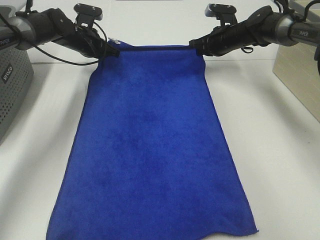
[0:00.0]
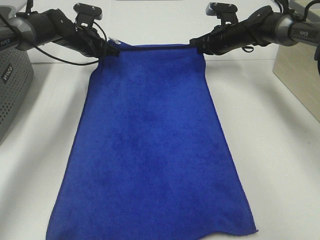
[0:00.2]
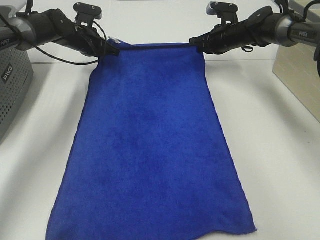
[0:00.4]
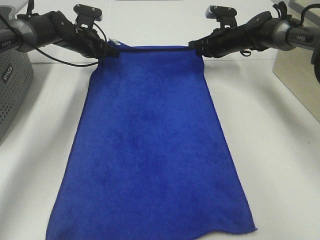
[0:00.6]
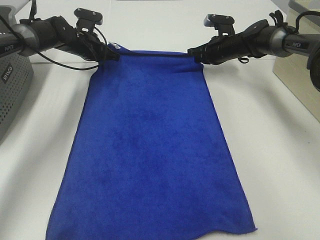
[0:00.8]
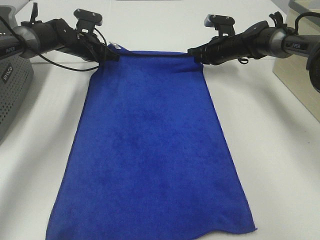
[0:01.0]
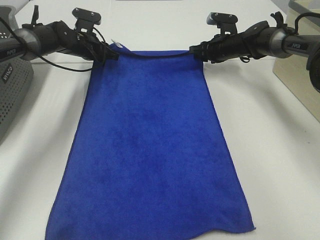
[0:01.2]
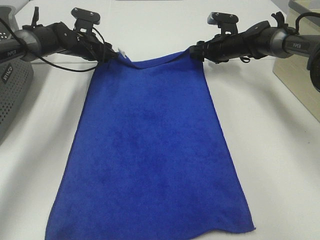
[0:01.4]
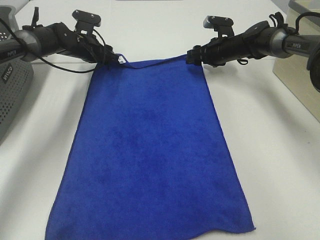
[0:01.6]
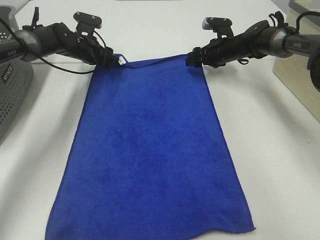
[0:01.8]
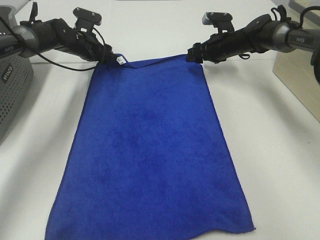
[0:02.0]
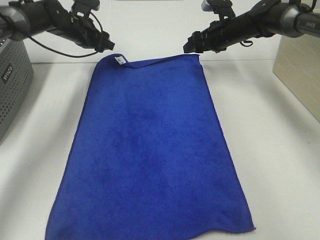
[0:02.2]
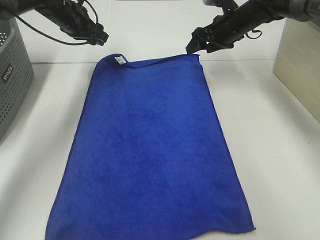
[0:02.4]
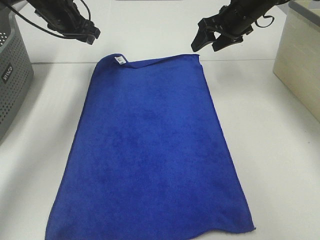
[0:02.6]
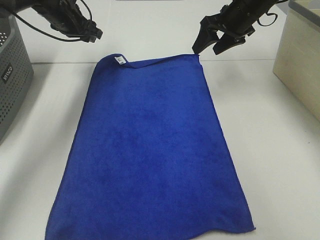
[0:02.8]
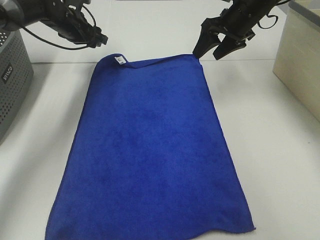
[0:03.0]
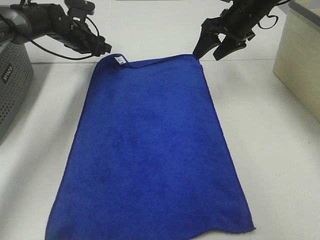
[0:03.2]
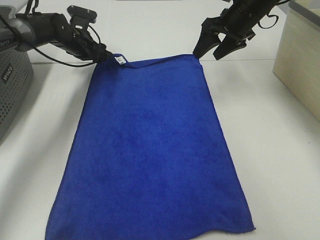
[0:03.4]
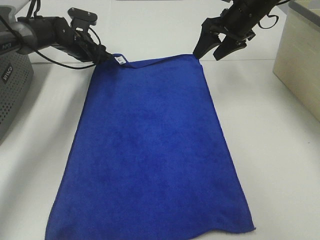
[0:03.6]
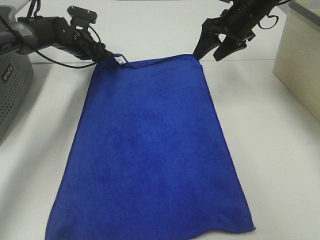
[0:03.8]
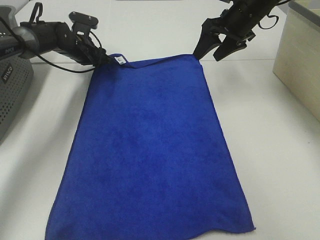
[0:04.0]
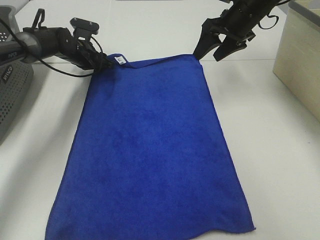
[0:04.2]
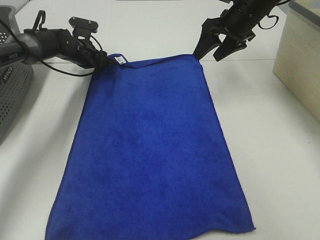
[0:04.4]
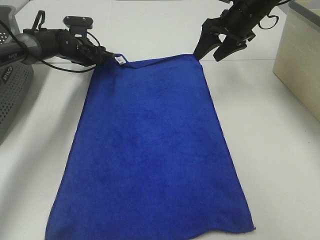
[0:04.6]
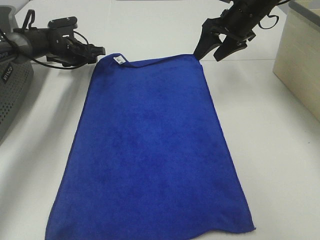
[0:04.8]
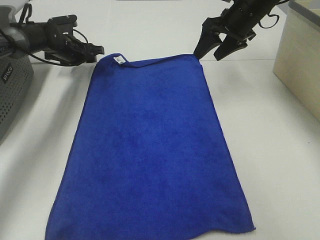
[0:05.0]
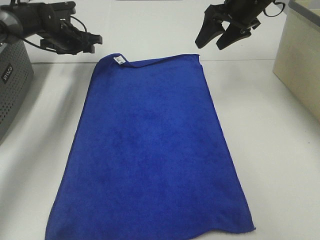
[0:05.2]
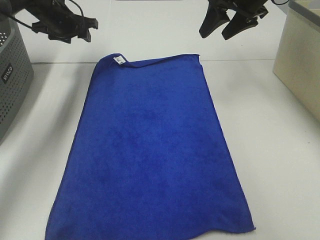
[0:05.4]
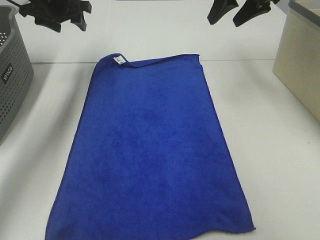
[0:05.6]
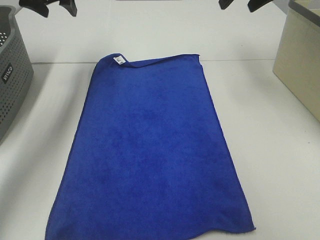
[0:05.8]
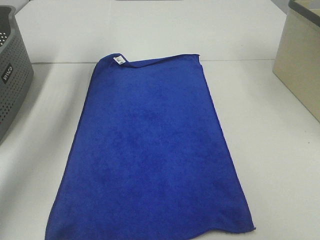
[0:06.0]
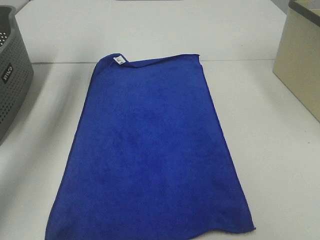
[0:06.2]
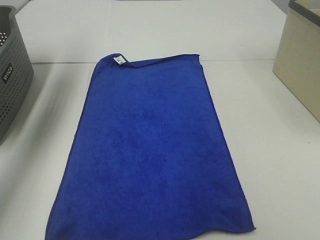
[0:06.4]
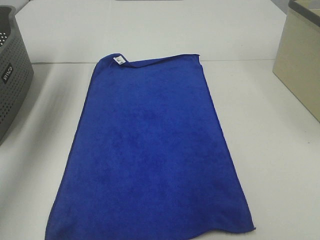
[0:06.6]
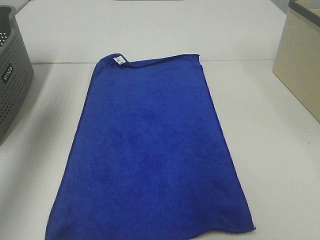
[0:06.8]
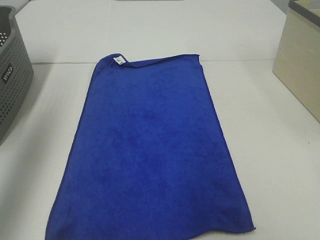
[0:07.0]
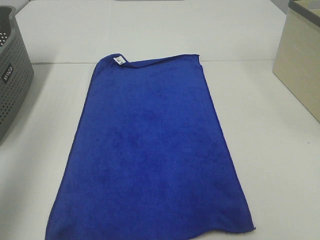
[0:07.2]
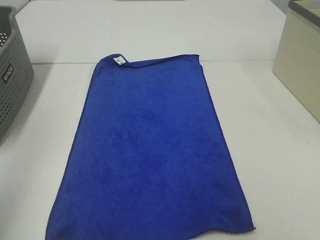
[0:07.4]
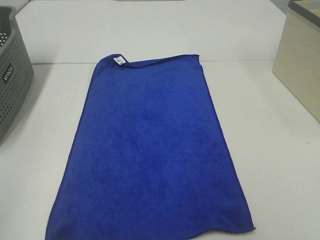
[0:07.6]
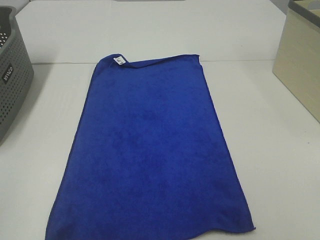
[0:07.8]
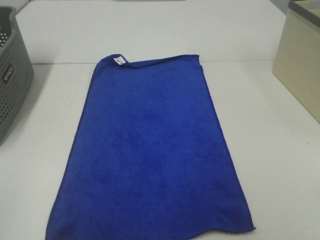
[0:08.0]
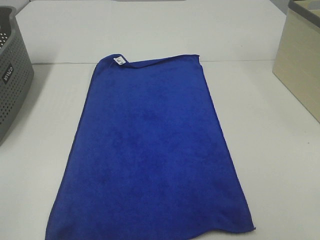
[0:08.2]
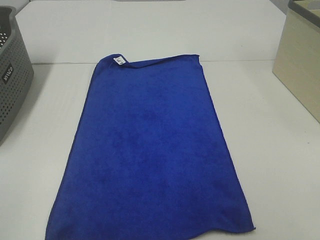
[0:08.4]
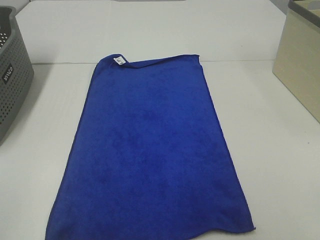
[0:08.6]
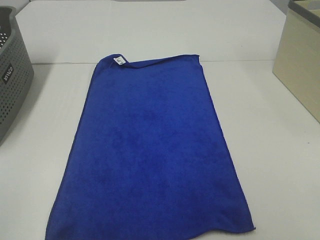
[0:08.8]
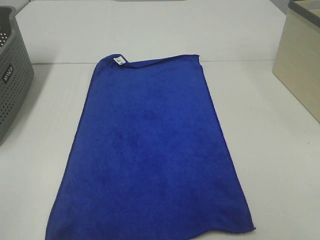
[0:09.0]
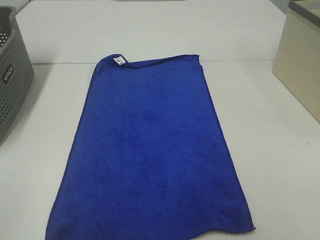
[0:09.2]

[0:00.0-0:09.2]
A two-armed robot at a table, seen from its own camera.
Task of the whole recording: Remove the towel and place it.
0:00.0 to 0:01.6: The right gripper opens up, while the left gripper opens up.
0:01.6 to 0:03.0: The right gripper is displaced upward and backward by approximately 15 cm, while the left gripper shifts roughly 5 cm upward.
0:03.0 to 0:04.6: The left gripper goes about 10 cm downward.
0:04.6 to 0:06.2: The left gripper goes approximately 30 cm upward. The right gripper moves upward and backward, about 20 cm.
0:06.2 to 0:07.6: Both grippers move backward, some 40 cm.
